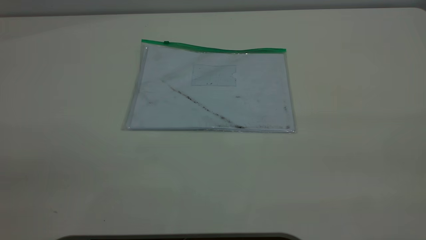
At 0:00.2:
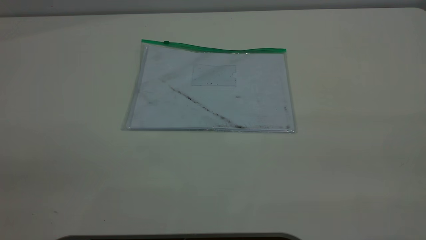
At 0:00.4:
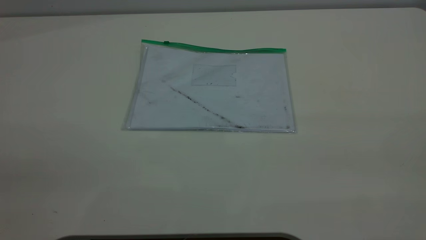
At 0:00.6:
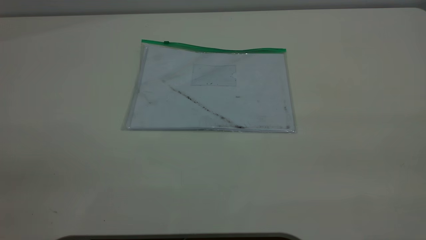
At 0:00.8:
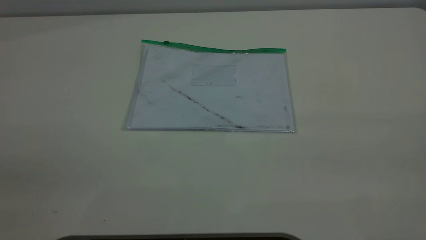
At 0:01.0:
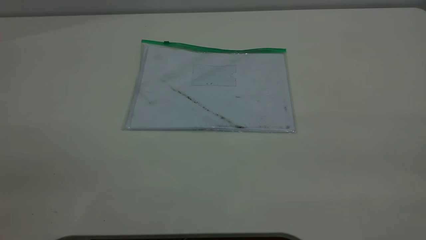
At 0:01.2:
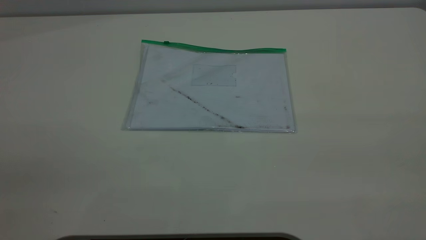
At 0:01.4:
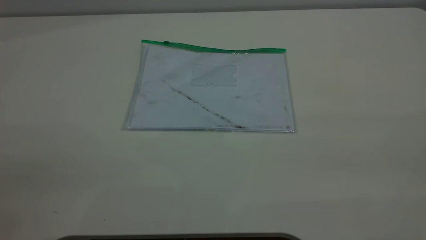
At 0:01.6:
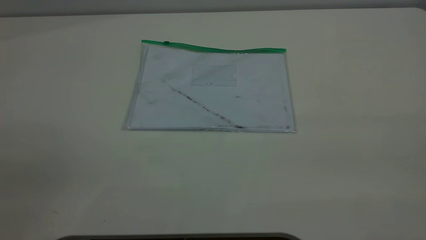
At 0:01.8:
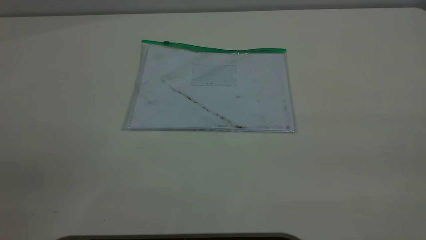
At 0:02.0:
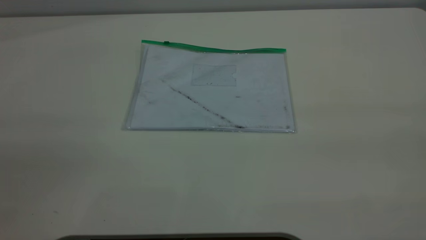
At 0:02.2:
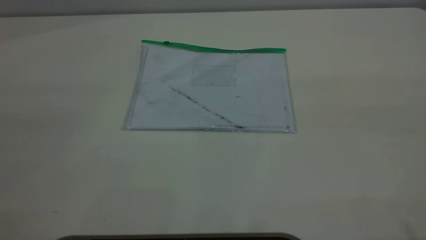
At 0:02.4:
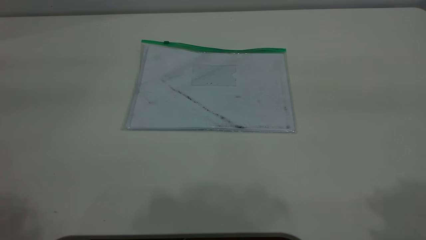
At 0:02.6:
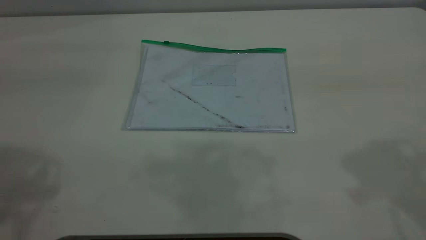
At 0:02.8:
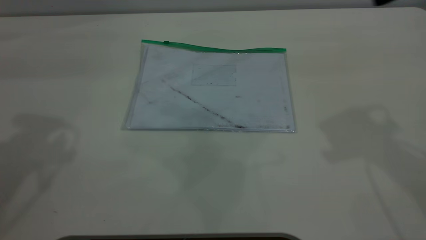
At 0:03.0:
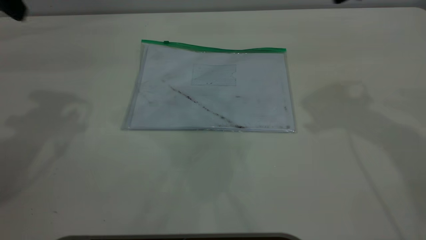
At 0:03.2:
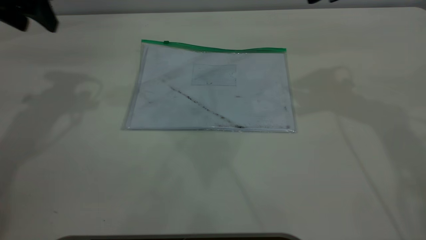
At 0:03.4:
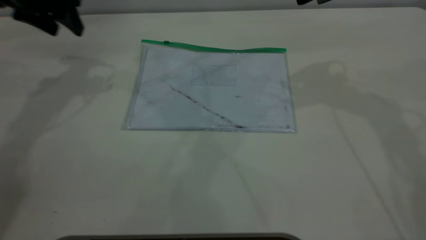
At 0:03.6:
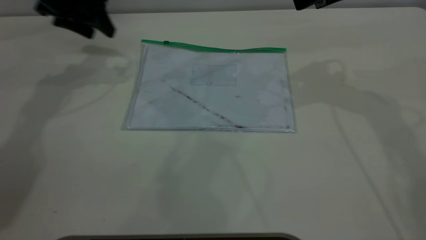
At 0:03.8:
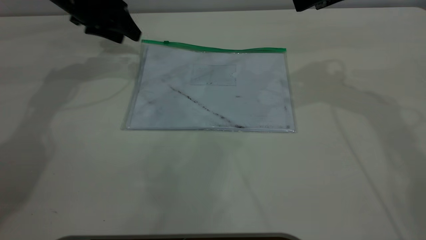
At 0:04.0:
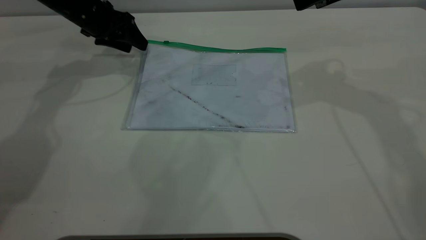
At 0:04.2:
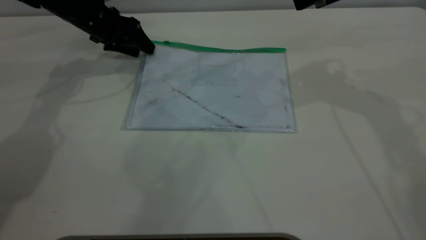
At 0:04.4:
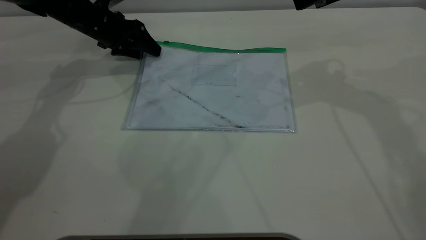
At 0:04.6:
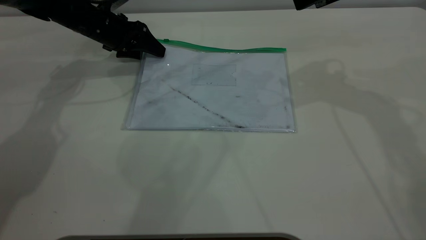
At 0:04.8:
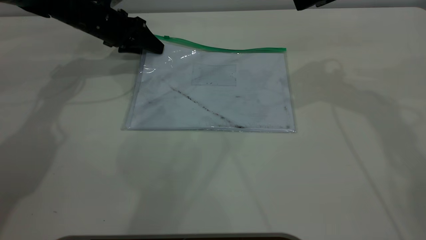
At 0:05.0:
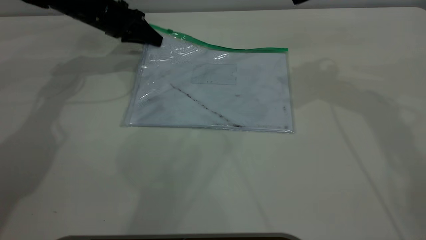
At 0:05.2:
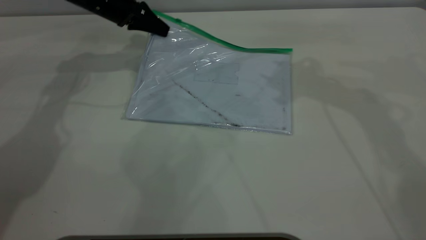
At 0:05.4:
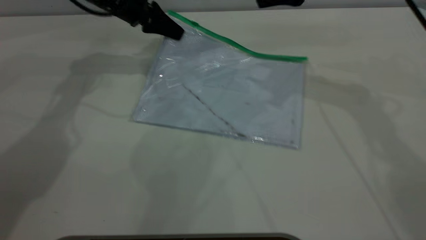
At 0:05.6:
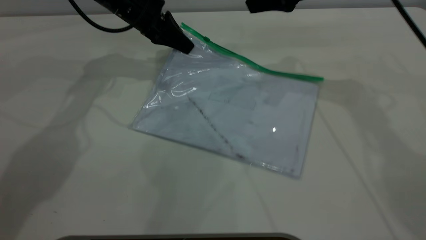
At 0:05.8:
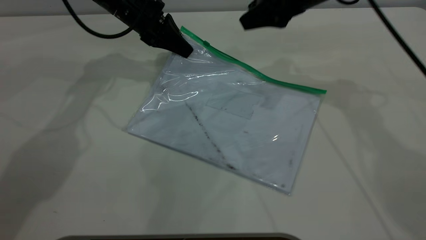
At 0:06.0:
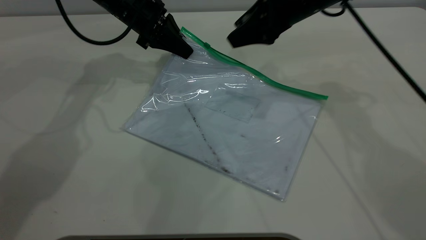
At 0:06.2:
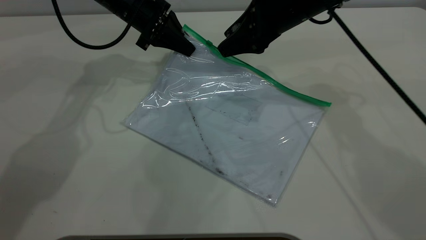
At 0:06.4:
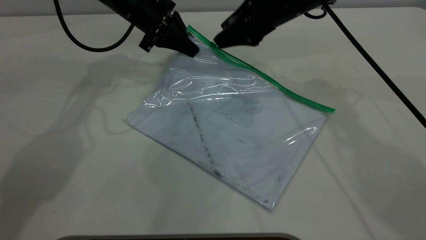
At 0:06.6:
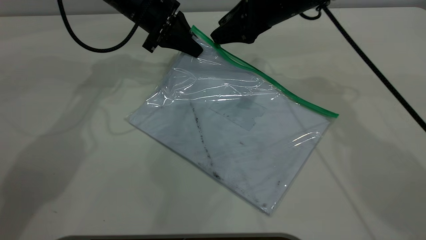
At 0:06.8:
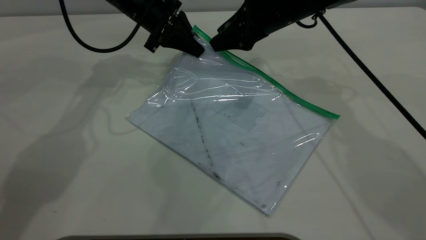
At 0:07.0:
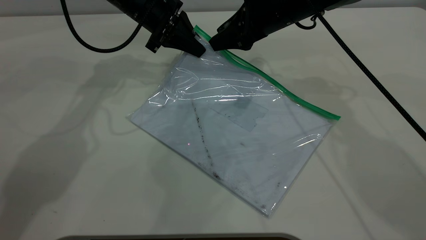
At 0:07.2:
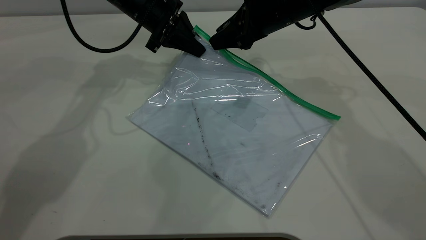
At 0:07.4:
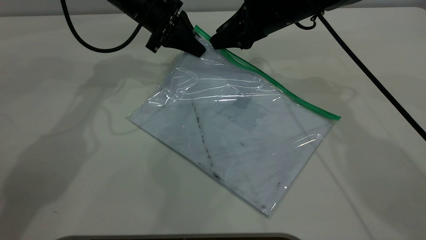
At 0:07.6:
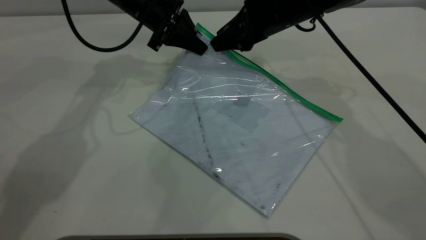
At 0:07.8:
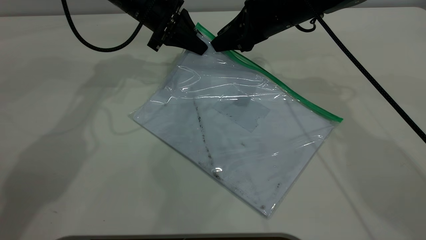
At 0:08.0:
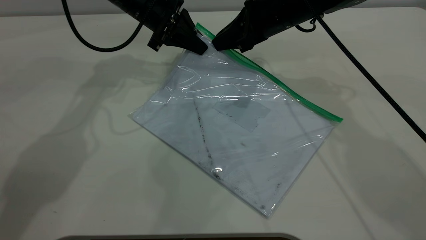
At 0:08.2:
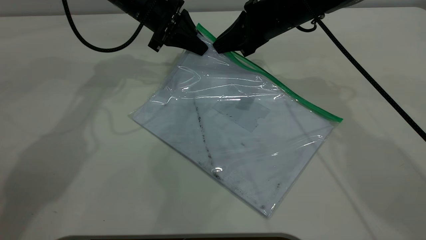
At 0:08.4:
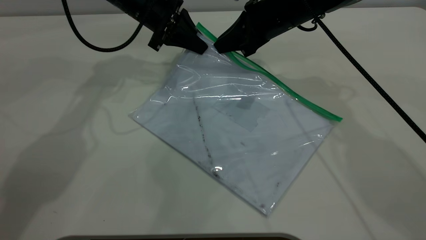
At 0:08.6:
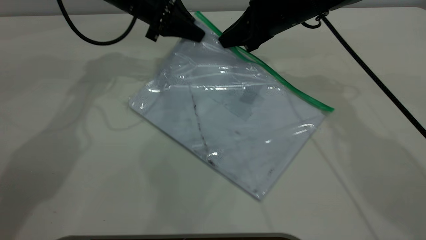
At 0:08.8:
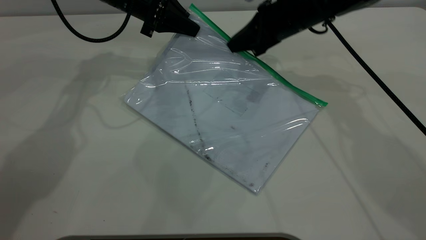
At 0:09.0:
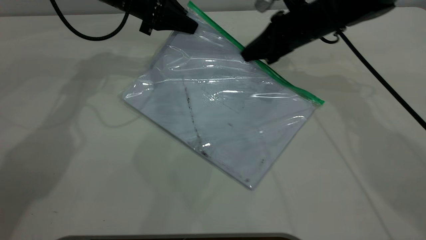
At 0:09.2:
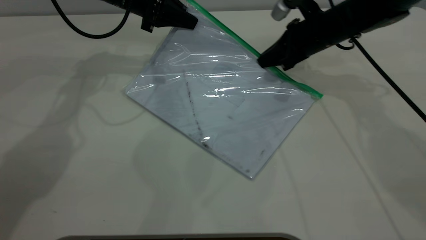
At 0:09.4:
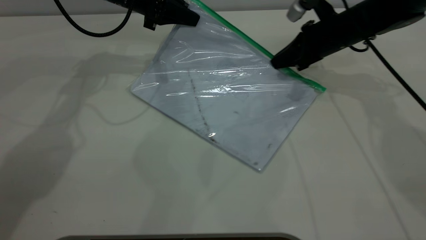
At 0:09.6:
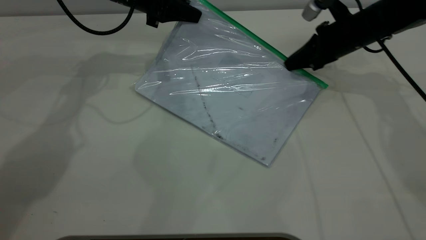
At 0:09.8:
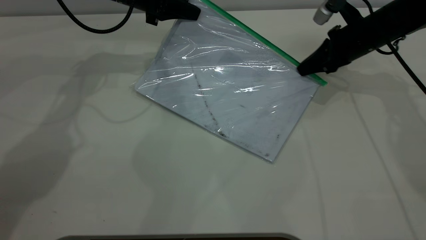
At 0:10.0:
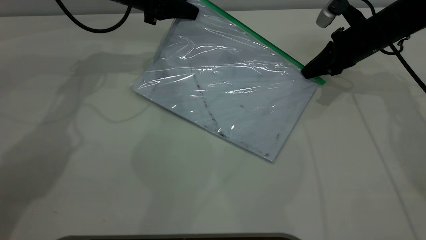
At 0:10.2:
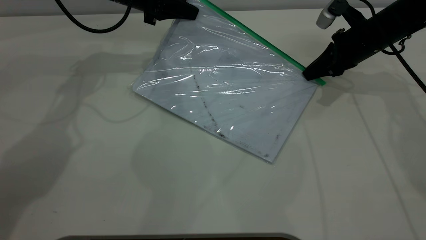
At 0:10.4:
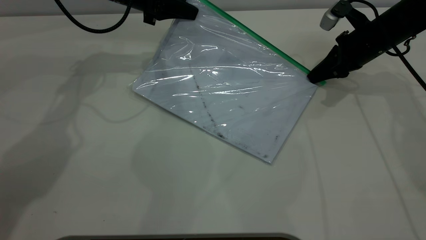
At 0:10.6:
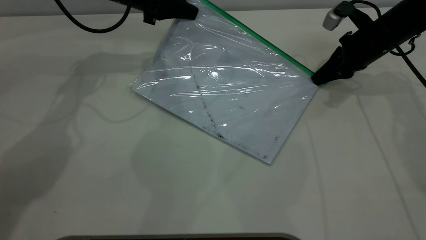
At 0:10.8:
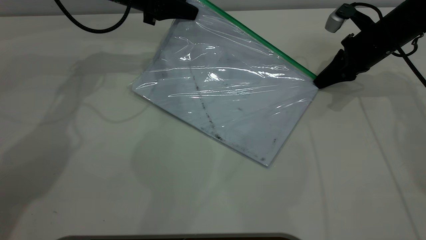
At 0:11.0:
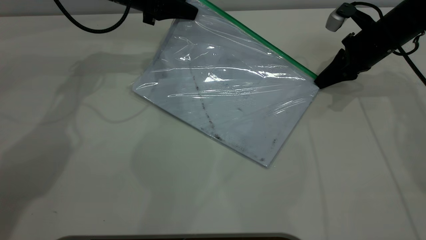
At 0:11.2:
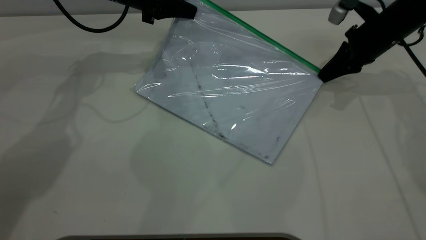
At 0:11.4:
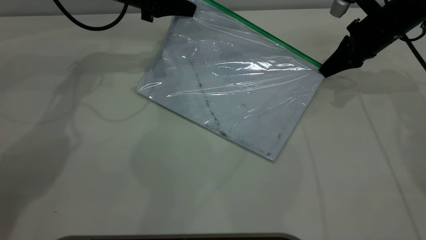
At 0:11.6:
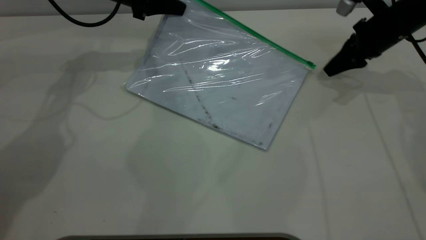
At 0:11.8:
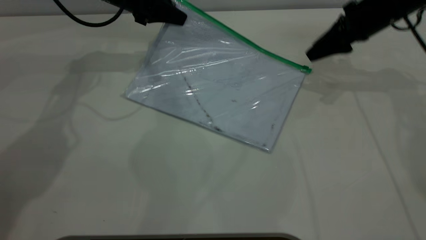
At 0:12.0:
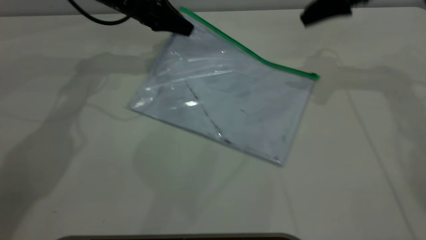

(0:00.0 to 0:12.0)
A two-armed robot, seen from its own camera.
Step, 0:00.0 - 0:05.0: Pick up the transparent plastic bag with the left gripper.
Step, 0:05.2 - 0:11.4: Pulling up the zipper on the transparent plastic bag with the right gripper to close it.
0:00.0 - 0:01.6: Both grippers stay put.
0:03.0 - 0:04.4: The left gripper moves downward and forward, about 25 cm; the right gripper travels forward by roughly 5 cm.
0:04.4 - 0:06.0: The right gripper is displaced to the left and downward by approximately 10 cm, while the left gripper heads to the right, covering about 10 cm, and closes.
0:06.0 - 0:07.6: The grippers stay close to where they were, moving slightly.
0:07.6 - 0:09.0: The right gripper moves to the right, some 5 cm, and closes.
0:09.0 - 0:10.4: The right gripper is displaced to the right by about 10 cm.
0:10.4 - 0:12.0: The right gripper moves upward, some 15 cm, and opens.

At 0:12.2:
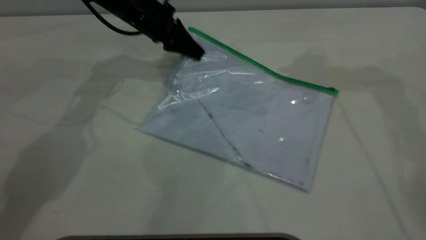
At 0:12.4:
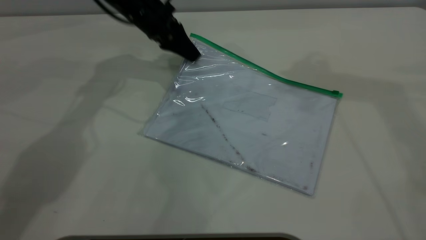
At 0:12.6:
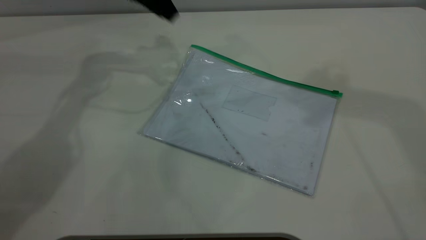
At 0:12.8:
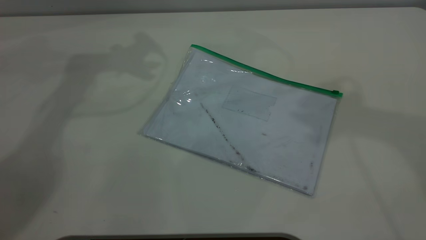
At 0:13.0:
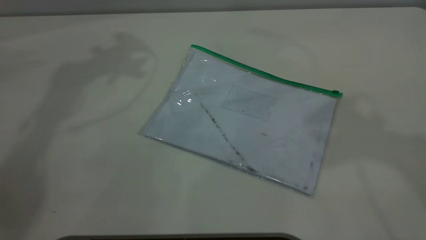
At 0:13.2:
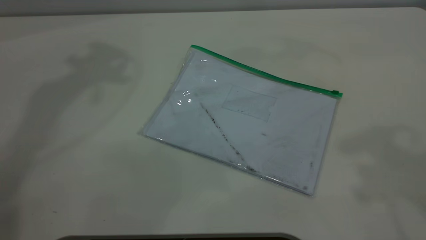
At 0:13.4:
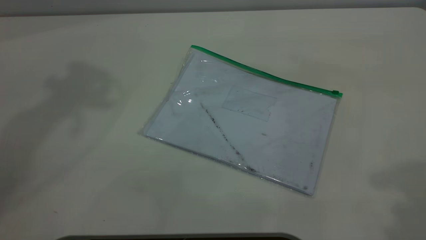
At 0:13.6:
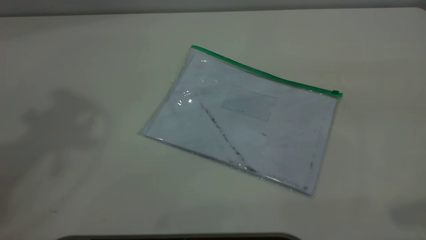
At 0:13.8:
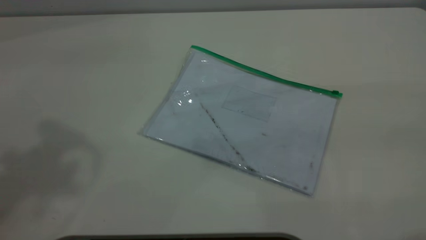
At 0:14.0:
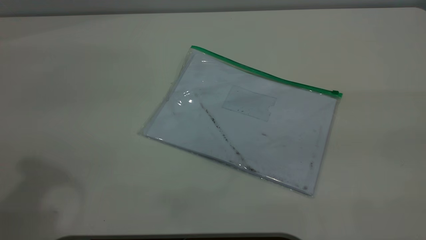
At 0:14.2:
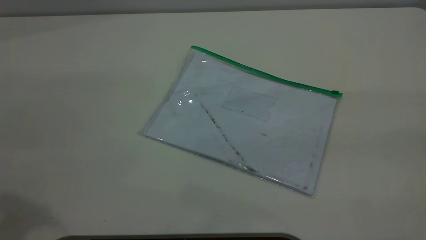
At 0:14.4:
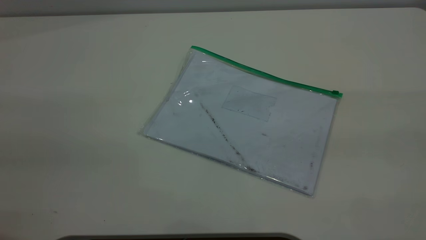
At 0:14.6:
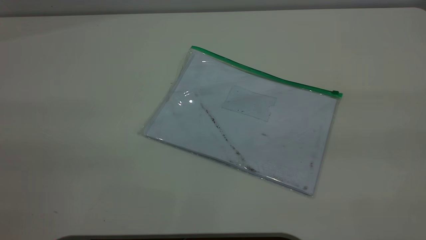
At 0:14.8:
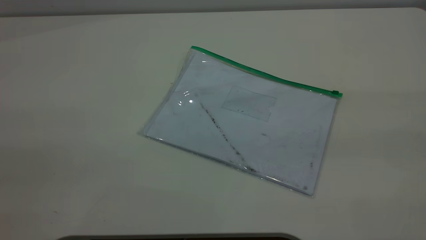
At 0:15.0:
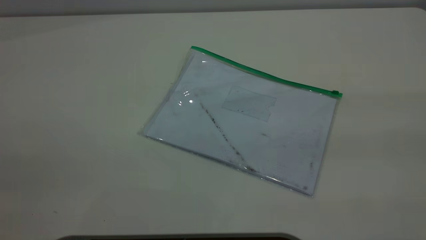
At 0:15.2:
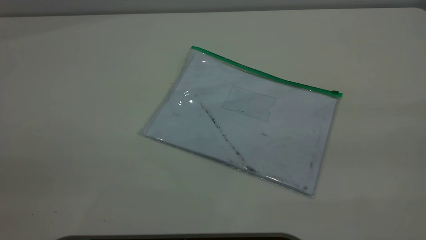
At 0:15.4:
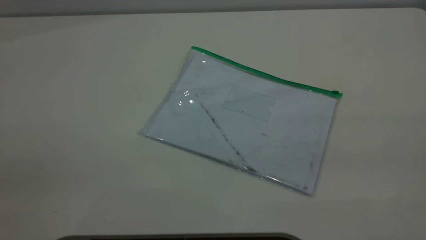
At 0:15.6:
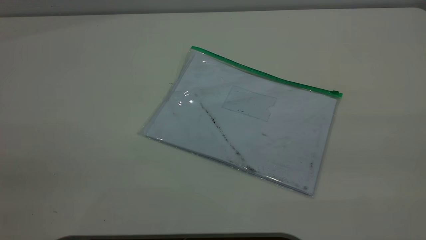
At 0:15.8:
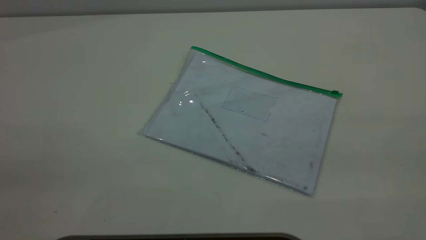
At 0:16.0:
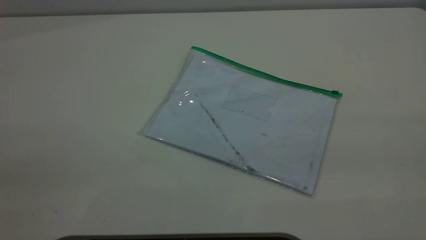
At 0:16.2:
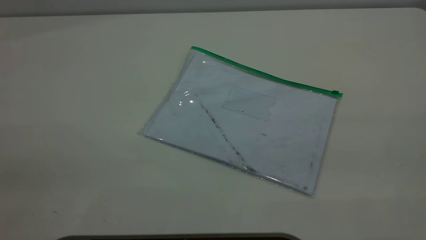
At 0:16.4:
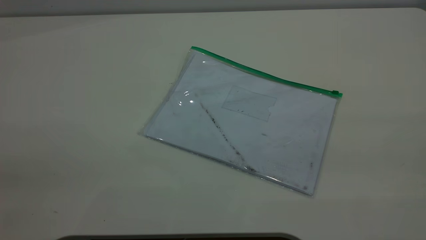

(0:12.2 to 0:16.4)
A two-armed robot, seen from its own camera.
0:12.2 - 0:13.6: The right gripper is displaced backward by about 35 cm. Meanwhile the left gripper travels upward and backward by roughly 50 cm, and opens.
